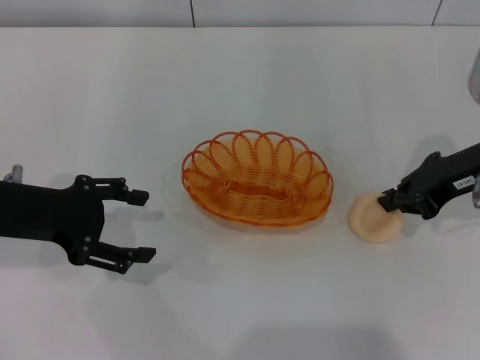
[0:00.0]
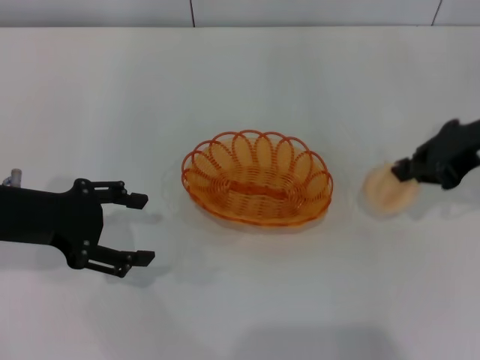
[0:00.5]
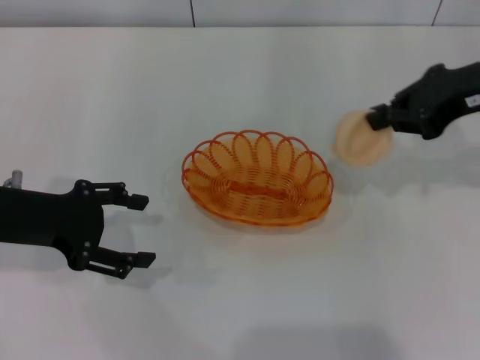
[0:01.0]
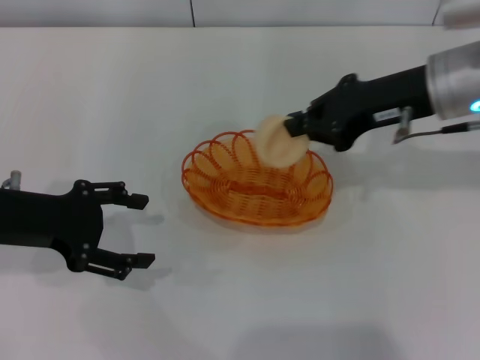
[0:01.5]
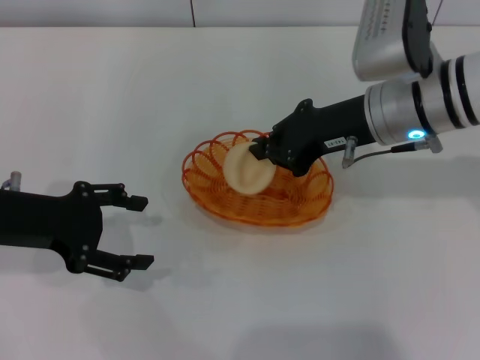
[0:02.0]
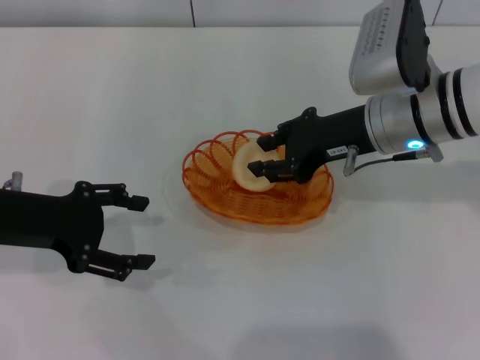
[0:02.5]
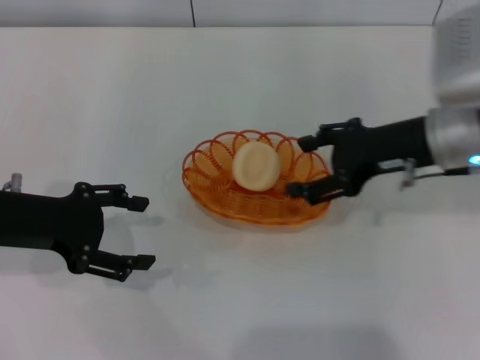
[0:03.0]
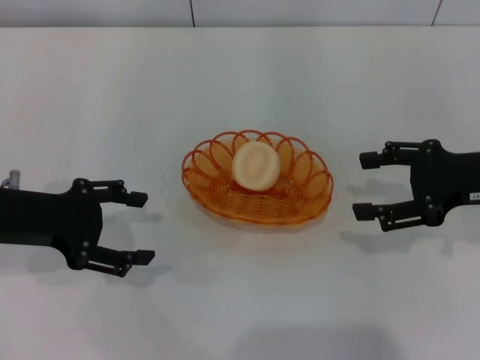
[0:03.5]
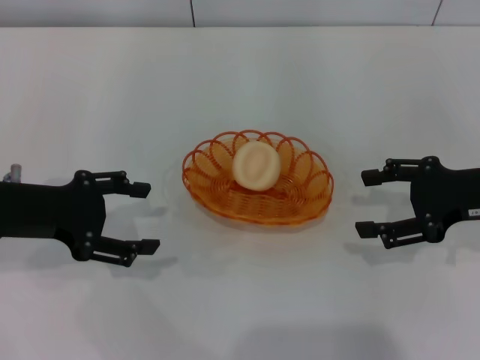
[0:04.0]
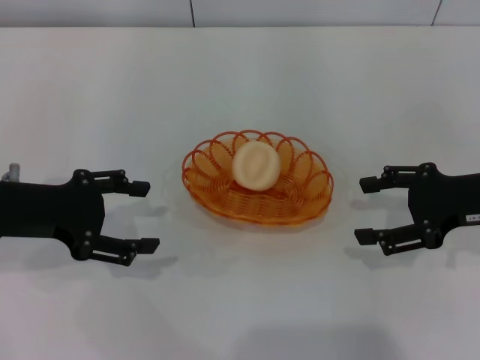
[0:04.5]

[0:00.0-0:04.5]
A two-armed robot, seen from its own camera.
Step, 0:01.0 to 0:03.0: Place the egg yolk pastry into the basket with the right gripper.
0:00.0 to 0:02.0: The right gripper travels to the left by about 10 cm.
0:02.0 to 0:04.5: The right gripper travels to the right and backward by about 15 cm, and opens.
